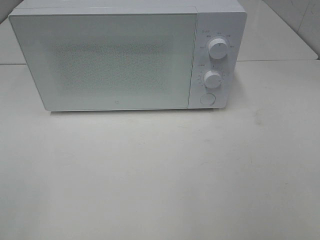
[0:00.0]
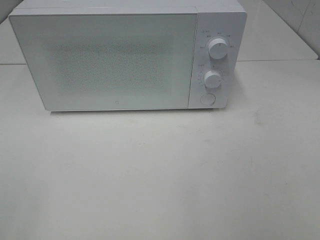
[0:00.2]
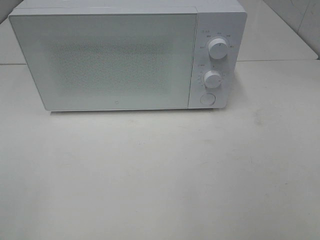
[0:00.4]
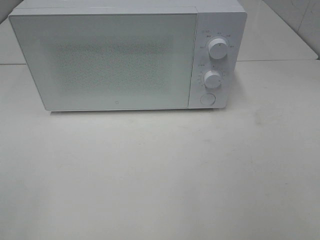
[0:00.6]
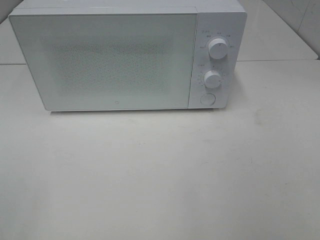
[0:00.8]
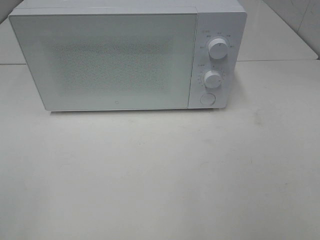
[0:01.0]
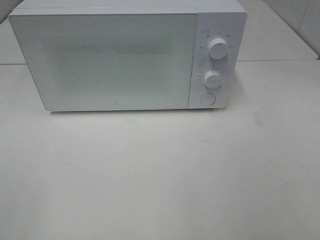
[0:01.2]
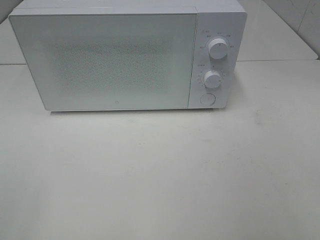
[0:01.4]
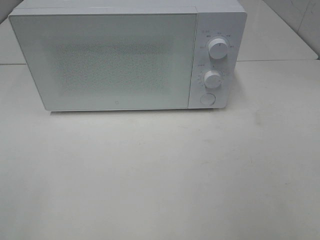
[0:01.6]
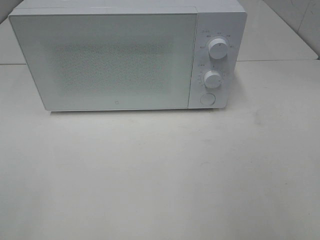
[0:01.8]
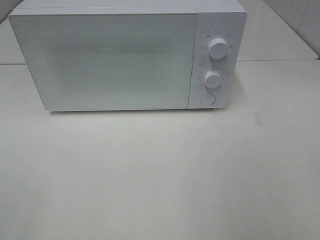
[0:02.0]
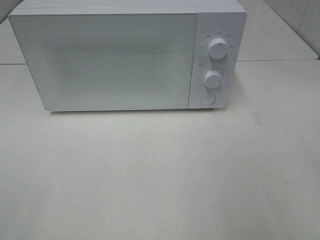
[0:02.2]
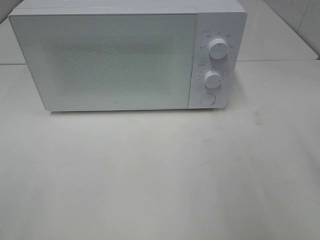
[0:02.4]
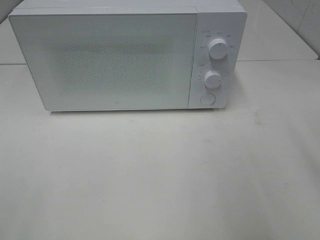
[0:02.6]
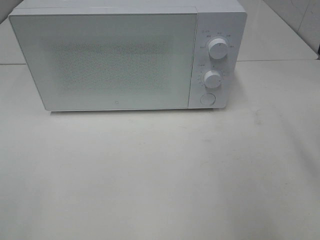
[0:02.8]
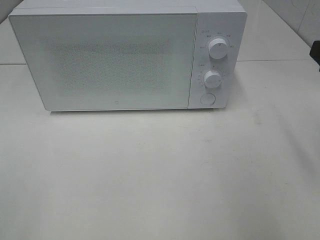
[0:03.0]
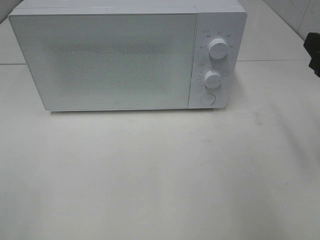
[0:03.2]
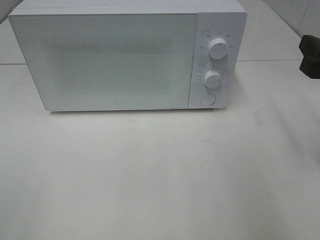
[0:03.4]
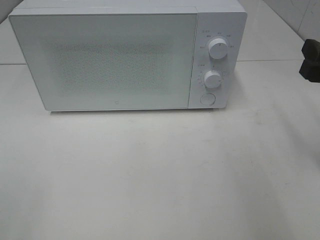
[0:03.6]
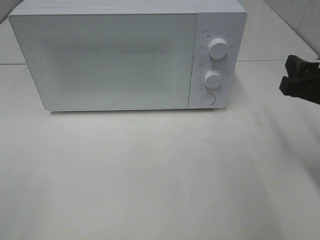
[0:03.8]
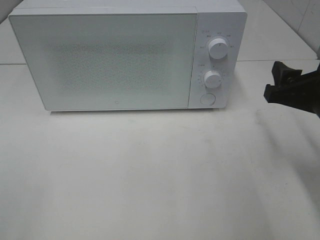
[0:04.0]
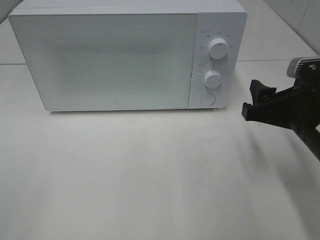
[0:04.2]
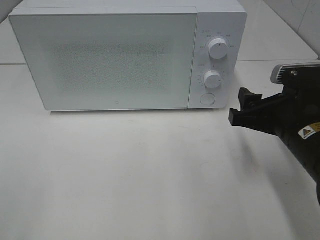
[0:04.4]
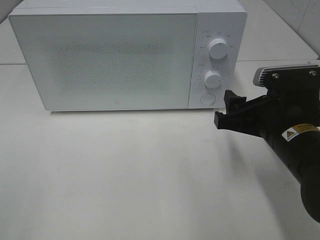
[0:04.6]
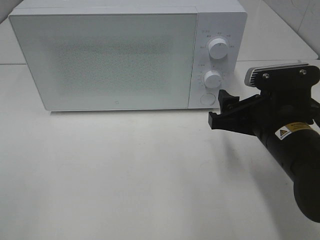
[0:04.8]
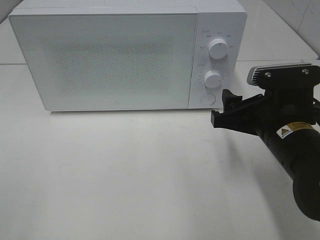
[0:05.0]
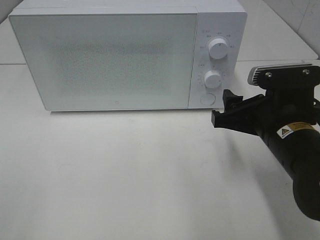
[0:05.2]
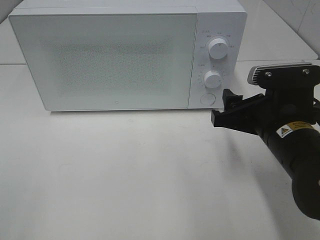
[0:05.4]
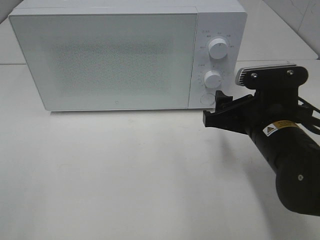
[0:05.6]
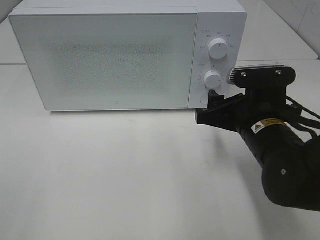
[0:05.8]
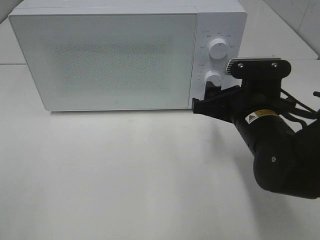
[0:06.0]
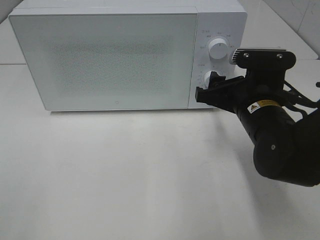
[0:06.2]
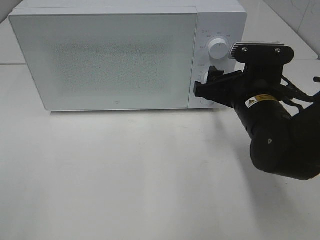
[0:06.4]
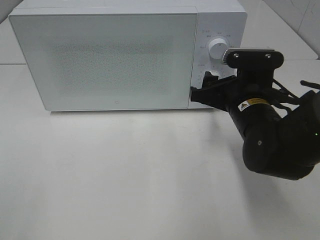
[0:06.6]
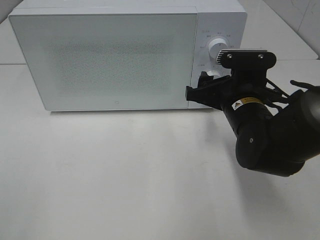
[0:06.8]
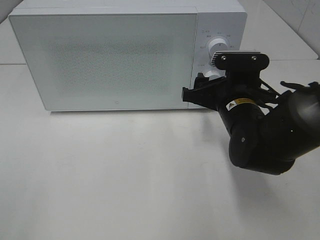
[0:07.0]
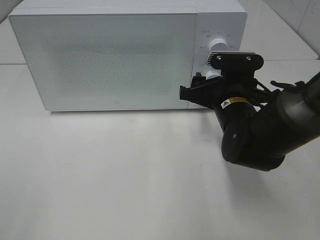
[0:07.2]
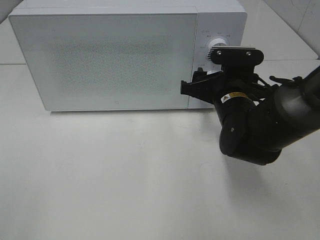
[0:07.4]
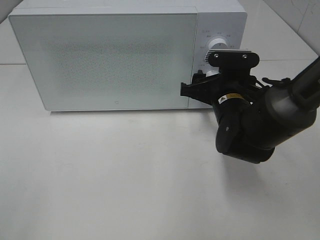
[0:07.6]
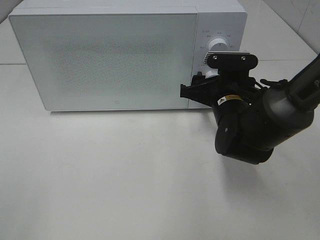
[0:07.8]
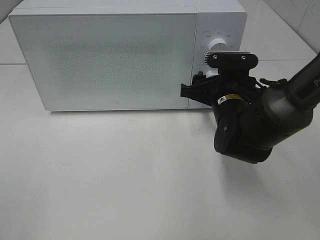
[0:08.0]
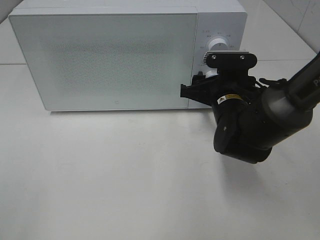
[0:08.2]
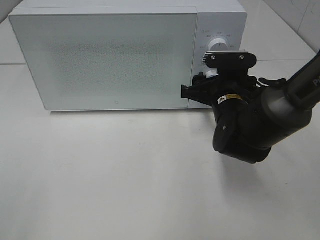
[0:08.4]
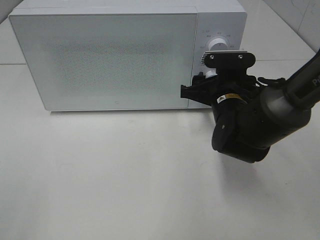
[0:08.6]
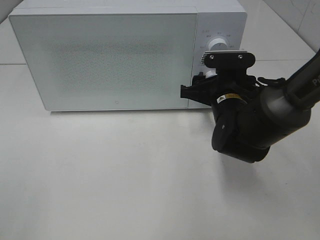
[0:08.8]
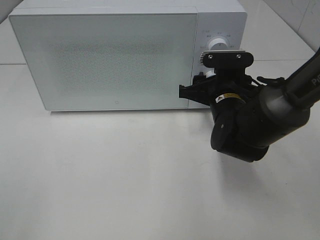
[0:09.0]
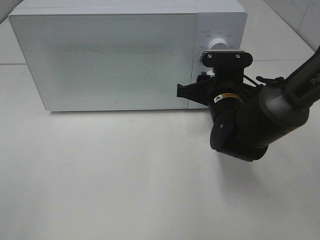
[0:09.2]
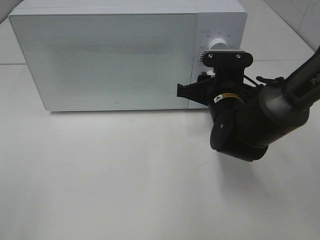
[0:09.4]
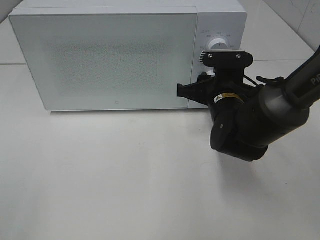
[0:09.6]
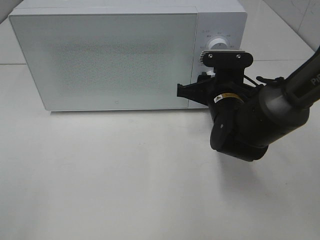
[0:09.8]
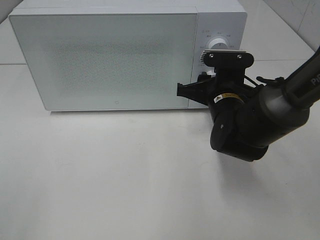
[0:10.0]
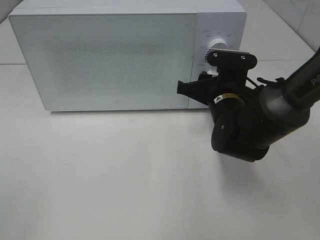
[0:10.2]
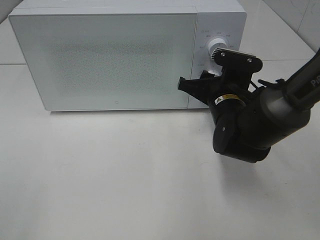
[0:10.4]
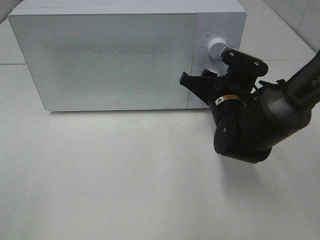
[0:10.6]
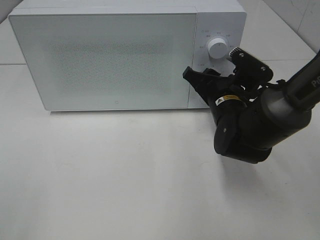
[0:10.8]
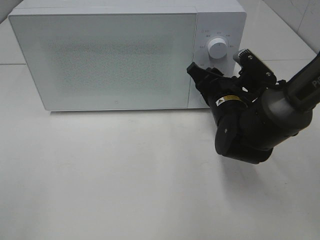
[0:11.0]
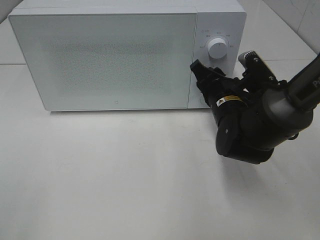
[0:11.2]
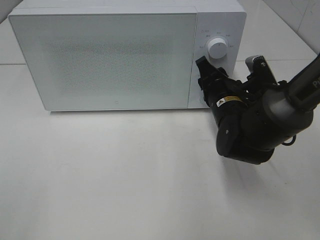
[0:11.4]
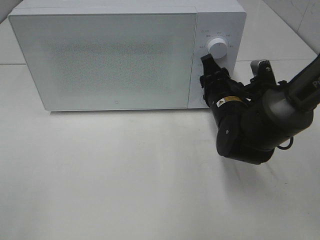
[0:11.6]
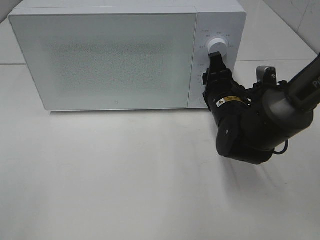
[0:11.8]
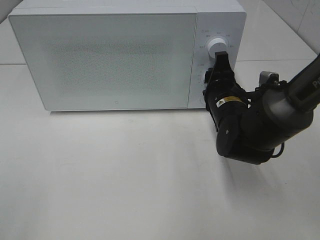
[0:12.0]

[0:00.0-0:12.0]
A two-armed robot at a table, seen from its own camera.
Task of the whole recording: Heat the burger.
0:03.0 to 0:04.4: The right gripper is displaced downward and to the left by approximately 10 cm.
0:04.4 to 0:06.0: The right gripper ends up roughly 5 cm from where it was.
0:06.0 to 0:07.6: The right gripper shifts approximately 5 cm forward.
0:07.6 to 0:09.0: Both grippers stay about where they are.
0:09.0 to 0:10.4: There are only small adjustments of the grippers.

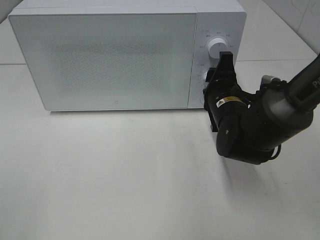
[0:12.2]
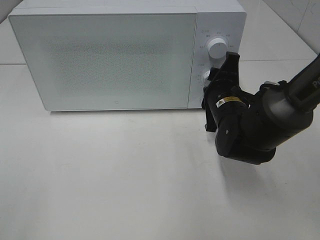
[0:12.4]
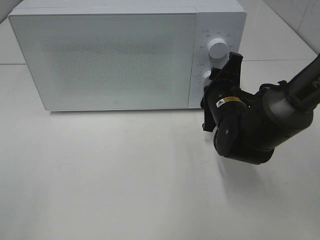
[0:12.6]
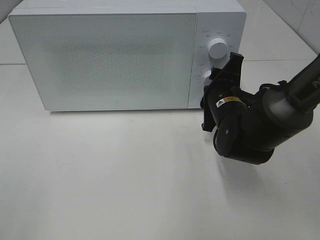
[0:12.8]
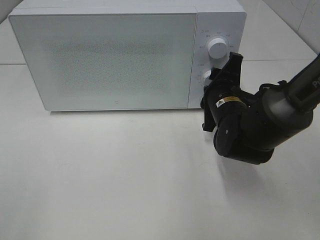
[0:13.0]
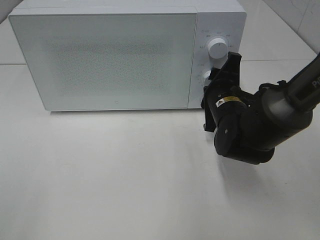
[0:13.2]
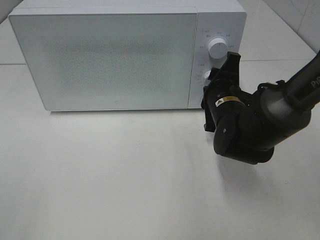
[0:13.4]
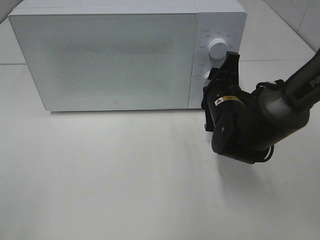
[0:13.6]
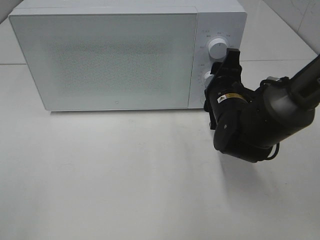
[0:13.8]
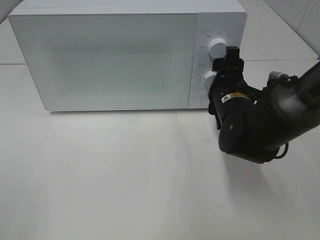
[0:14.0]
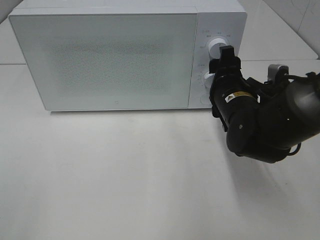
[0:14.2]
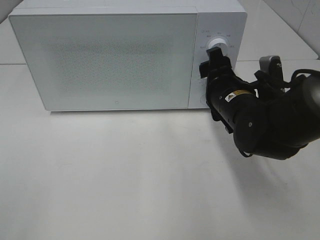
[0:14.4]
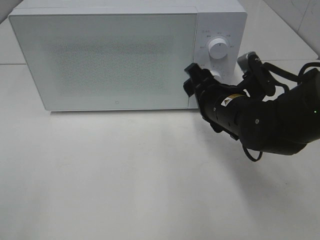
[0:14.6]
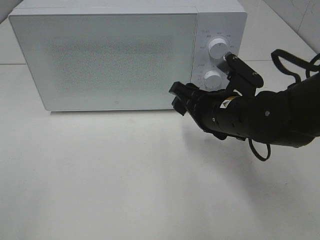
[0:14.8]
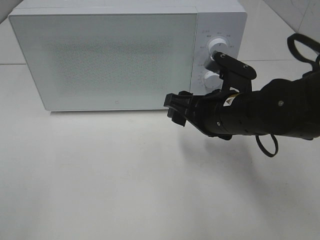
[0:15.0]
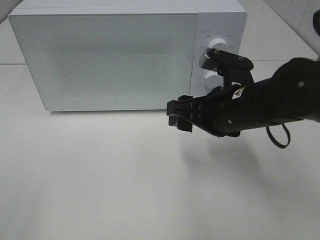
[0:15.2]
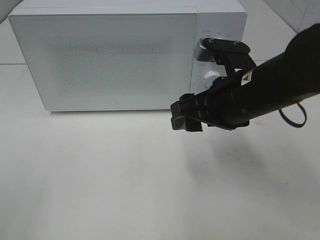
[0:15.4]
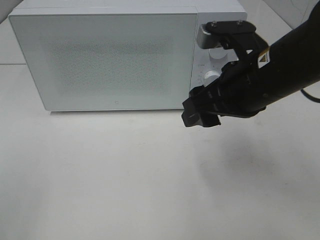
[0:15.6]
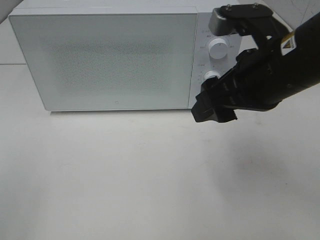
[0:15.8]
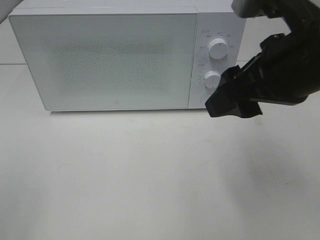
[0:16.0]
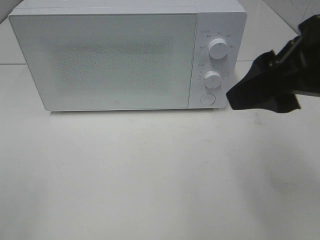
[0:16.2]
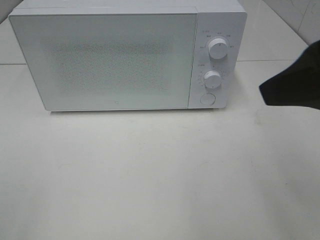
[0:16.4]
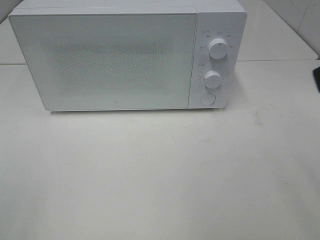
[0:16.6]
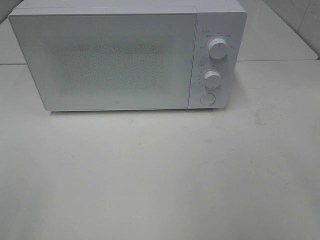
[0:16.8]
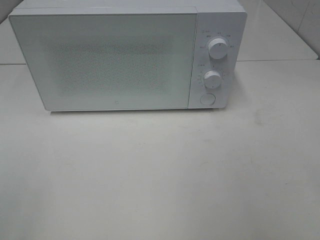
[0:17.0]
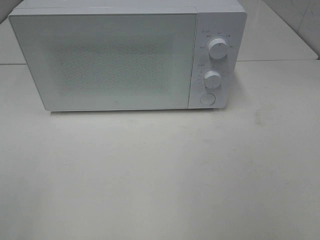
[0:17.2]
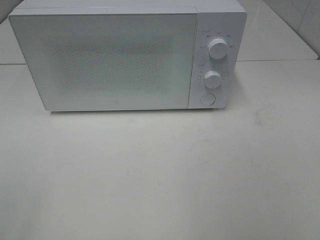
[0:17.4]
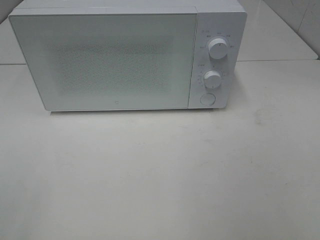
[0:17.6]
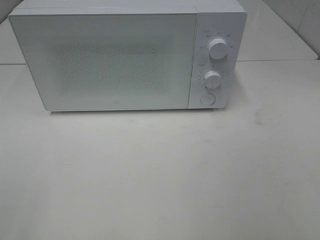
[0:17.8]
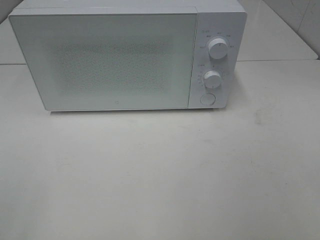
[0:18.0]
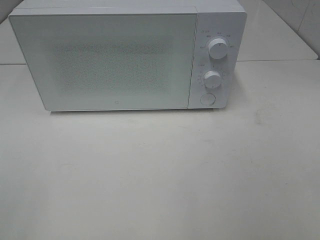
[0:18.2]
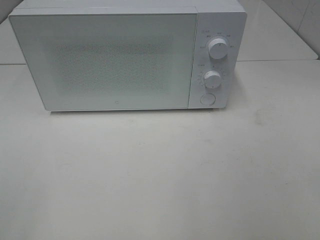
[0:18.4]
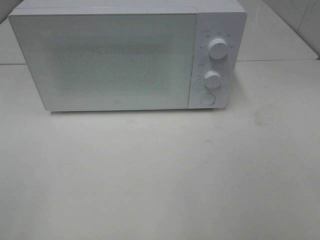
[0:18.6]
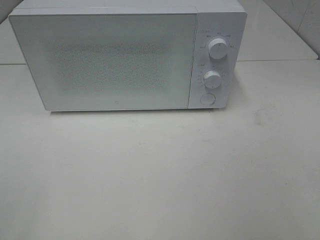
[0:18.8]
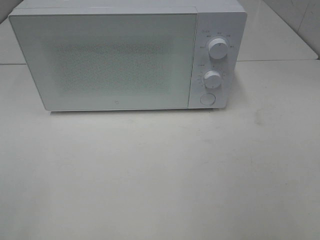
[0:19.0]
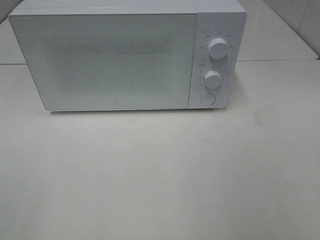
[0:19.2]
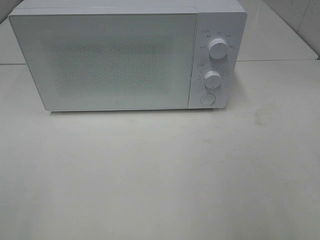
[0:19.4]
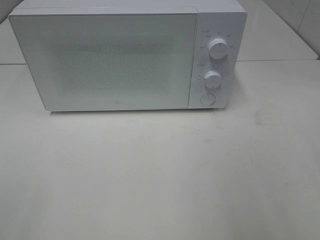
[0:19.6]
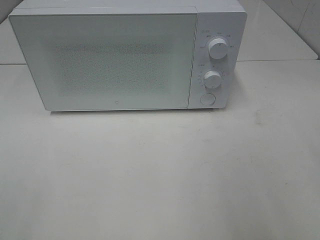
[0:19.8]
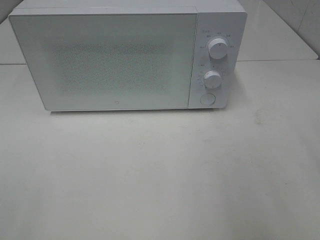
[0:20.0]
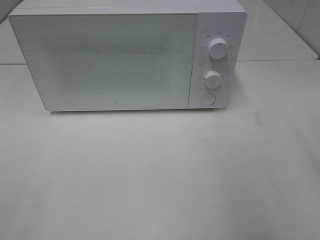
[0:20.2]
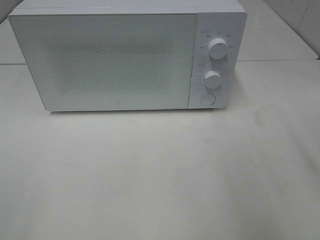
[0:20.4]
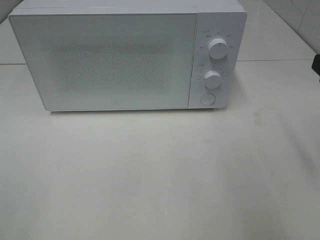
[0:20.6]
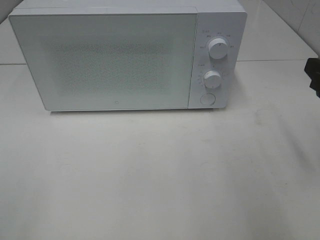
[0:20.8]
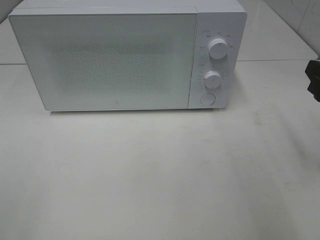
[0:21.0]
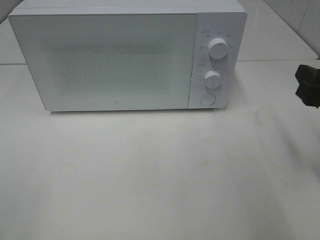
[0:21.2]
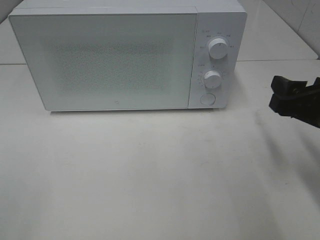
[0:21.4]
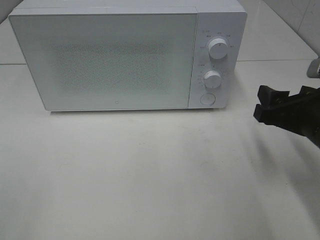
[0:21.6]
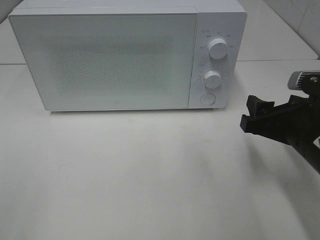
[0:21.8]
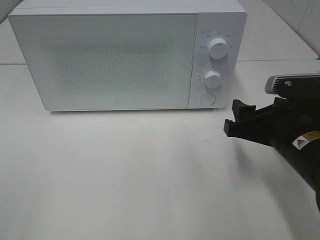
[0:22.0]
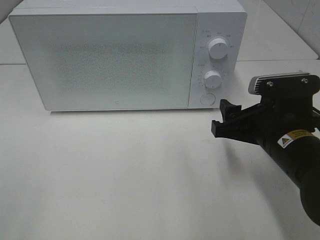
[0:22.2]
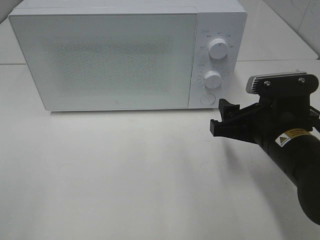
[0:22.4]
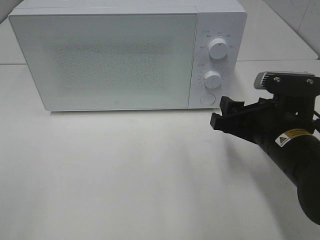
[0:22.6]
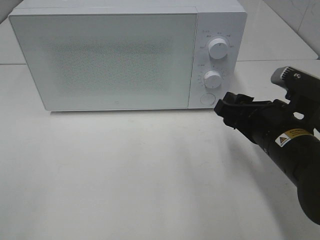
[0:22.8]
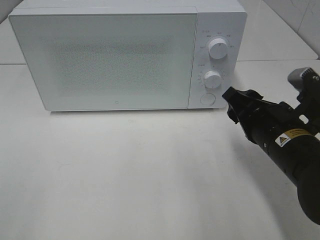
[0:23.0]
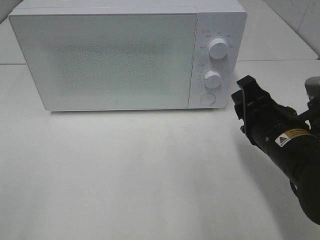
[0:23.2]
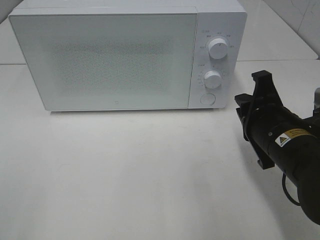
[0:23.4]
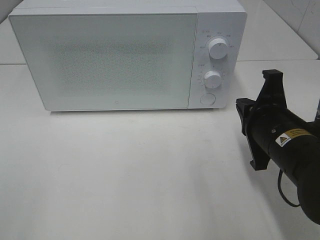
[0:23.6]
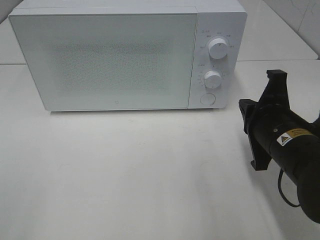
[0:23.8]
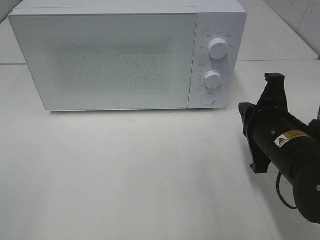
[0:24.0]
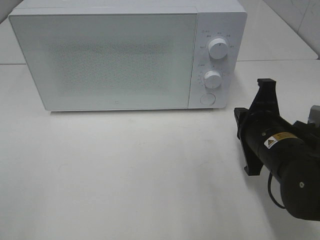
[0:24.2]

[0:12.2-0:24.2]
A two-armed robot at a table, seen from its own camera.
Task of the whole recording: Heat the burger.
Step, 0:12.2 to 0:14.2: Right hand: twist timer button.
0:12.2 to 0:13.8: The grippers make only small movements.
0:13.8 to 0:15.2: The right gripper heads backward and upward, covering roughly 10 cm.
0:15.2 to 0:16.6: The right gripper moves upward, backward and to the right, some 25 cm.
0:19.8 to 0:21.2: The right gripper is displaced downward and forward by some 15 cm.
0:21.2 to 0:22.6: The right gripper shifts some 10 cm to the left and downward.
0:22.6 to 0:24.2: The right gripper closes up.
